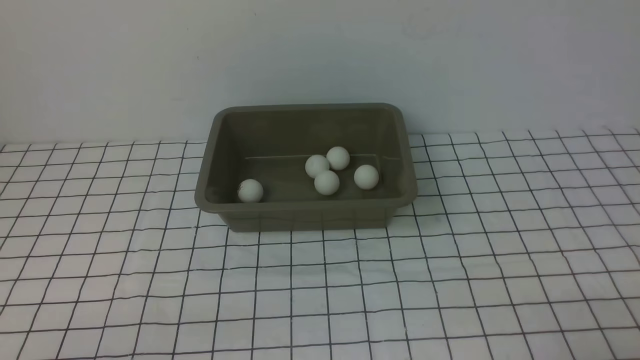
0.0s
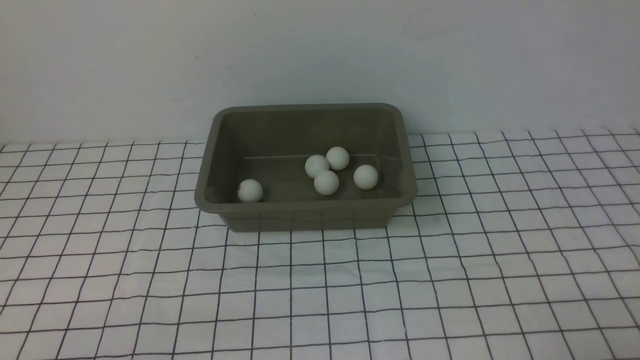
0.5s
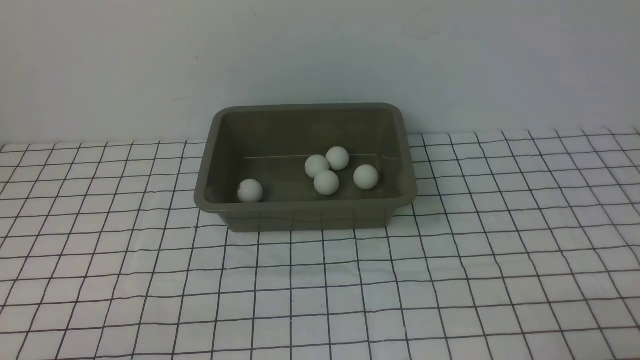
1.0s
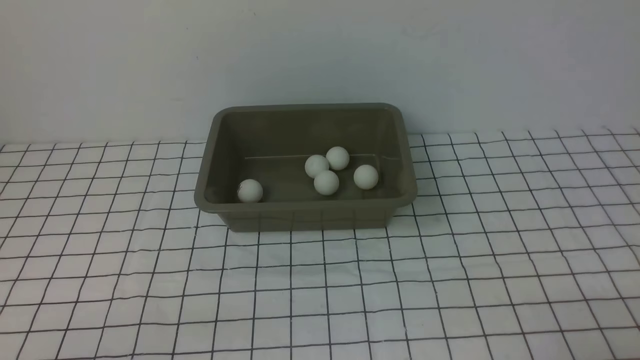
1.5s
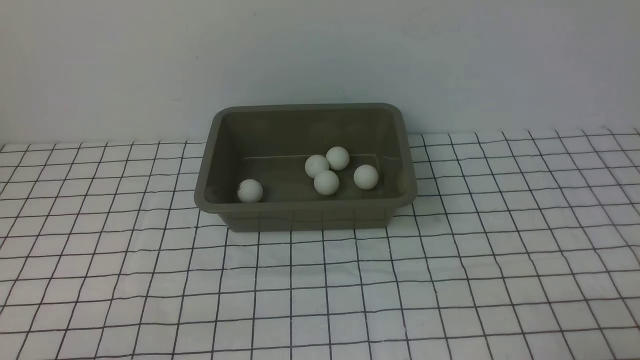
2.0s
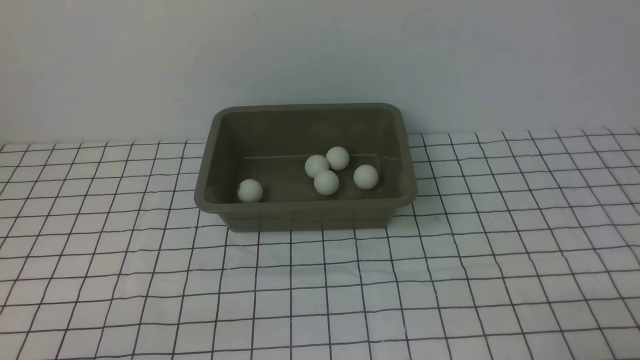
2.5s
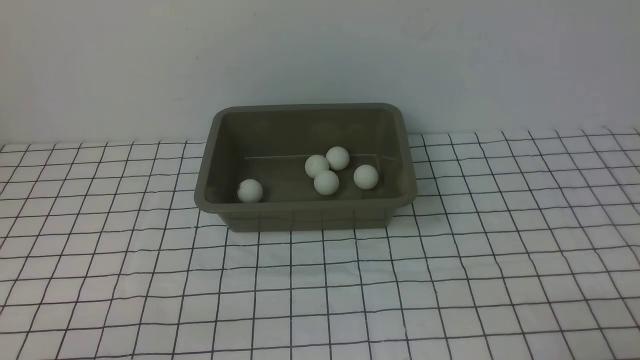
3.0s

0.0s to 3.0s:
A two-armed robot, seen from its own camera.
0.0s to 3.0s: Both grippers stay about where they are.
